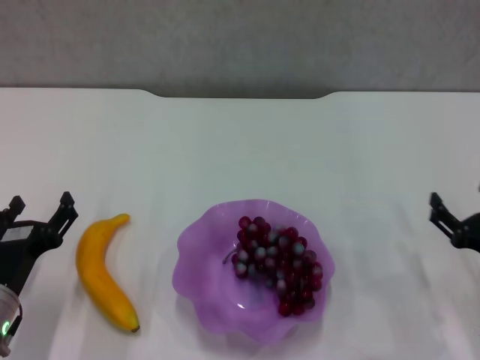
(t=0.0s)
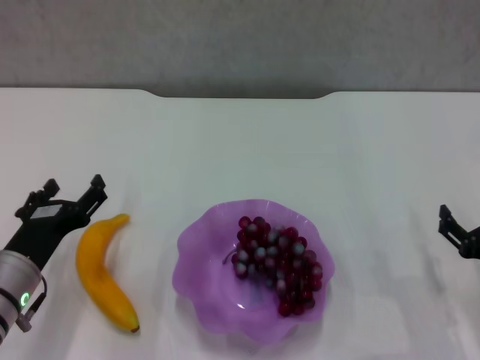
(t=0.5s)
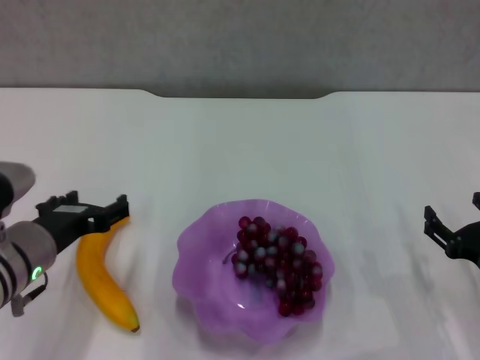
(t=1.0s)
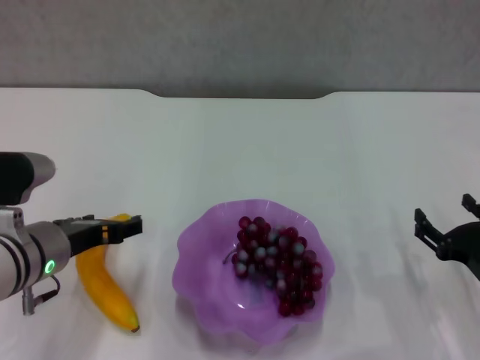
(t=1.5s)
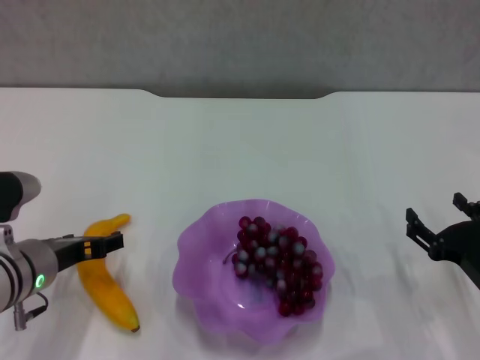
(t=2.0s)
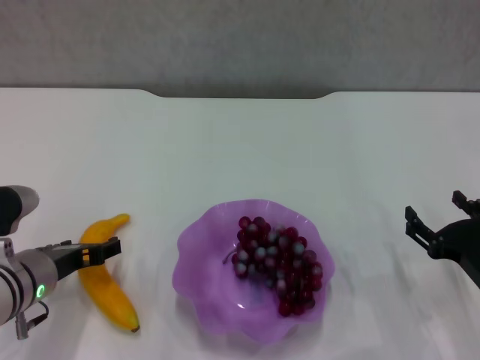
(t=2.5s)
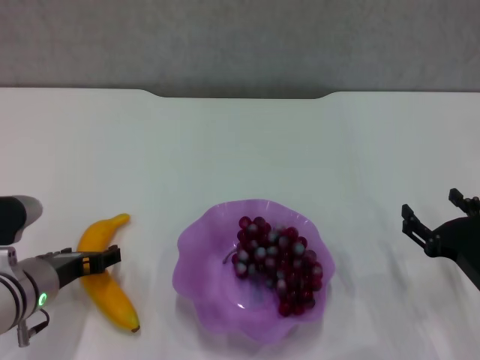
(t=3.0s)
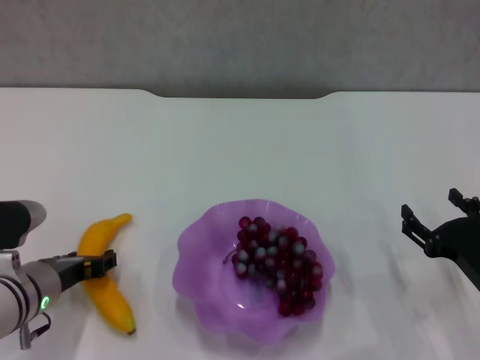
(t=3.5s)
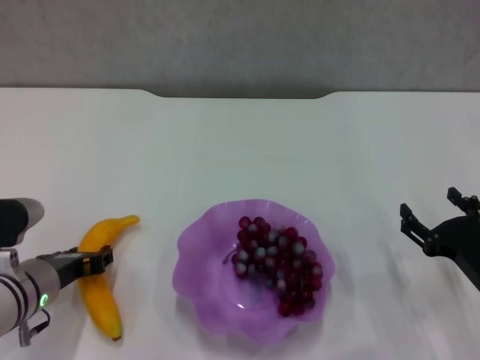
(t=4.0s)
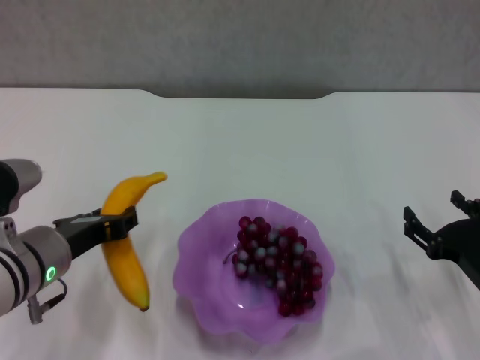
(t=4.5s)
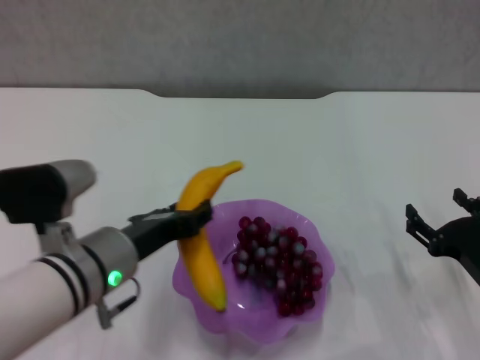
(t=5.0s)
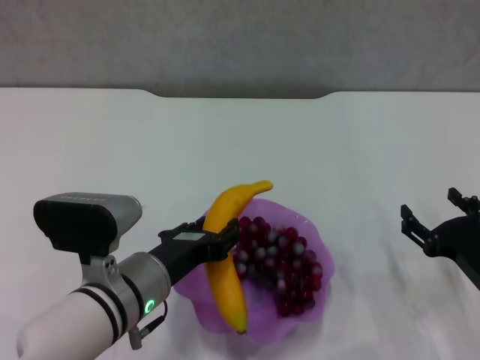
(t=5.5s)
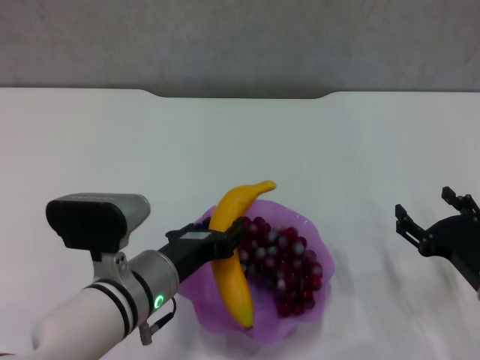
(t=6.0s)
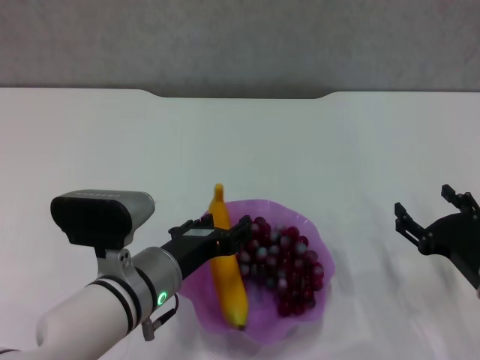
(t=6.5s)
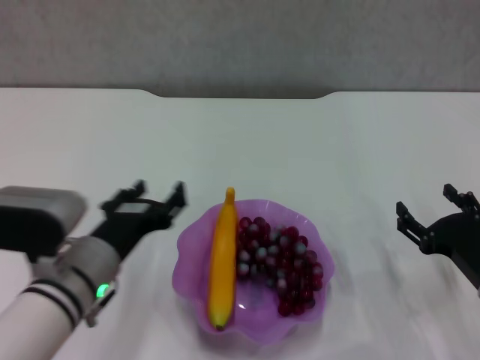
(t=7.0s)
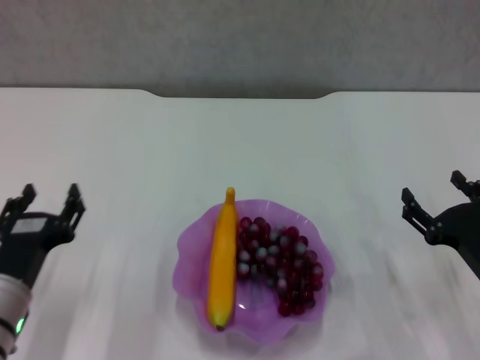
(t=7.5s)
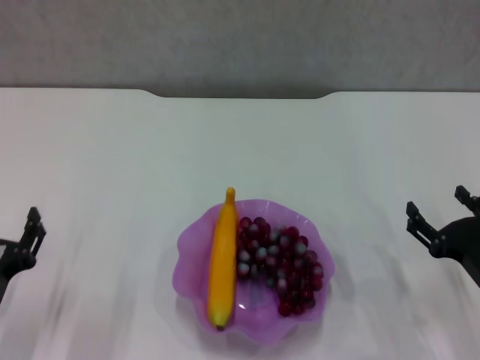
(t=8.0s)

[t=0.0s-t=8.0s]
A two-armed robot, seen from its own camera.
Step, t=0.0s to t=3.5s: Grasp the banana with left gripper.
Step, t=4.0s to t=6.5s: Place the banana in the purple plate with left gripper.
t=0.0s to t=2.0s: The left gripper heads upward and forward, covering approximately 10 cm.
t=2.0s to t=4.0s: The left gripper closes up.
t=4.0s to t=6.0s: The left gripper moves to the right, approximately 10 cm.
t=6.0s to t=8.0s: The left gripper shifts roughly 15 cm to the left, and opens.
